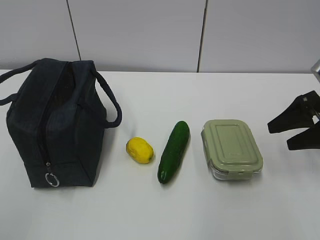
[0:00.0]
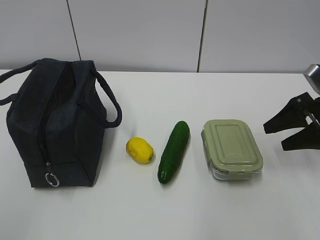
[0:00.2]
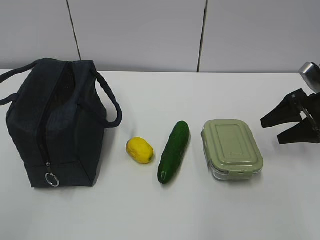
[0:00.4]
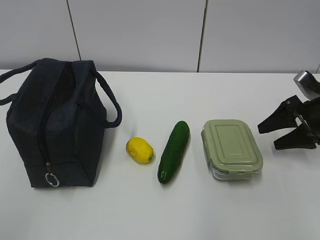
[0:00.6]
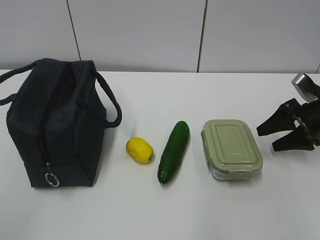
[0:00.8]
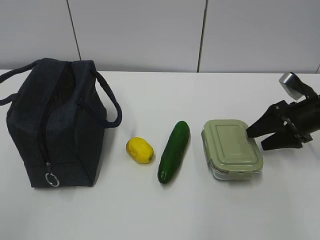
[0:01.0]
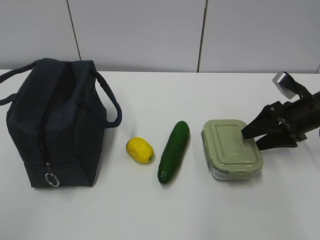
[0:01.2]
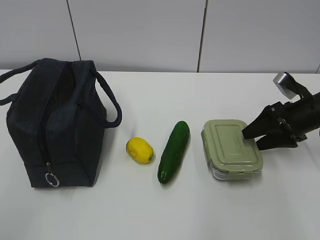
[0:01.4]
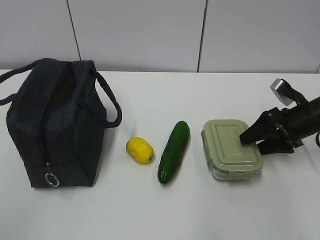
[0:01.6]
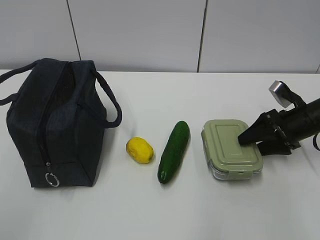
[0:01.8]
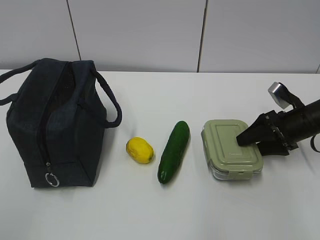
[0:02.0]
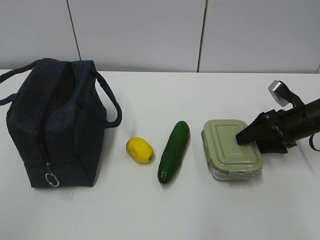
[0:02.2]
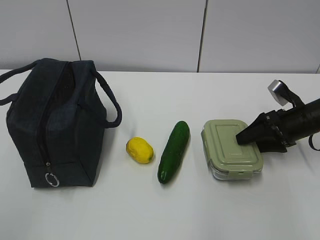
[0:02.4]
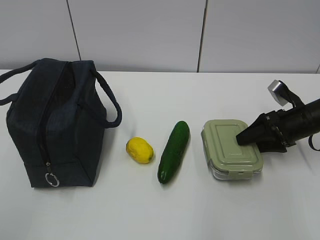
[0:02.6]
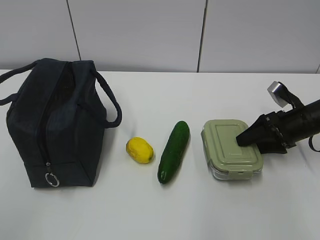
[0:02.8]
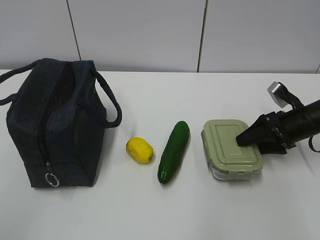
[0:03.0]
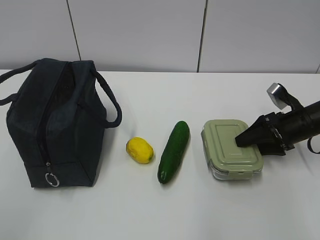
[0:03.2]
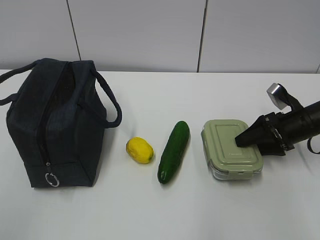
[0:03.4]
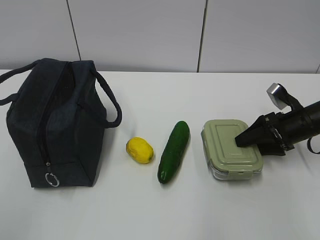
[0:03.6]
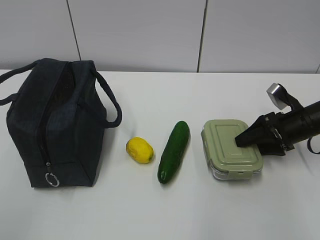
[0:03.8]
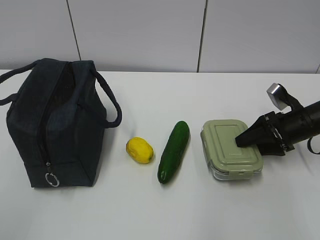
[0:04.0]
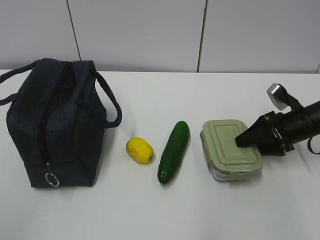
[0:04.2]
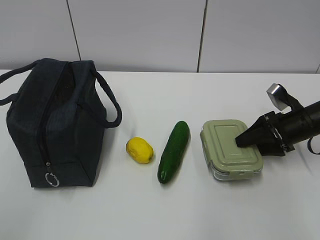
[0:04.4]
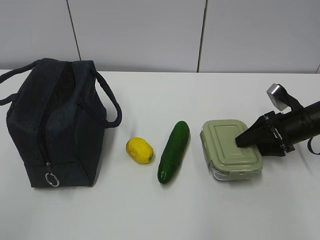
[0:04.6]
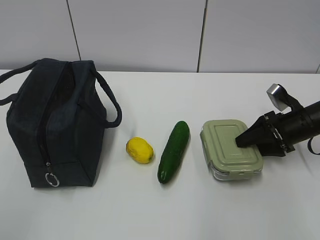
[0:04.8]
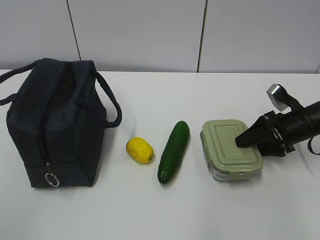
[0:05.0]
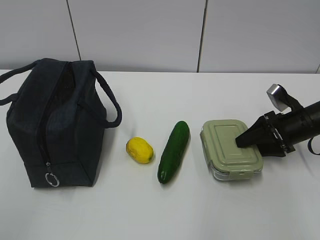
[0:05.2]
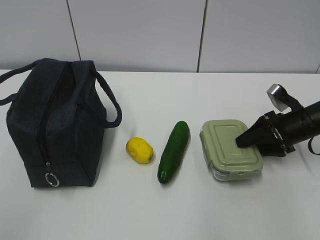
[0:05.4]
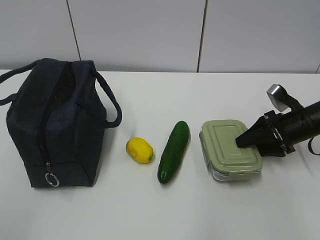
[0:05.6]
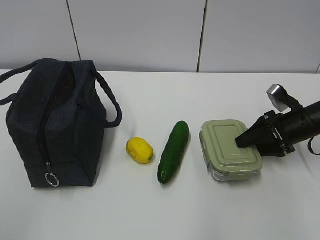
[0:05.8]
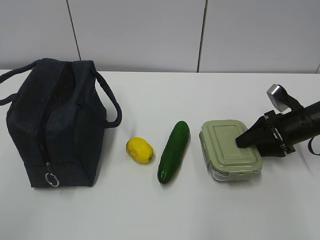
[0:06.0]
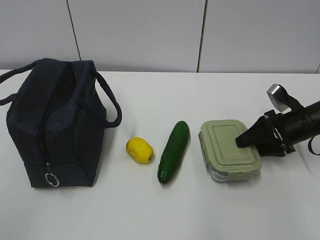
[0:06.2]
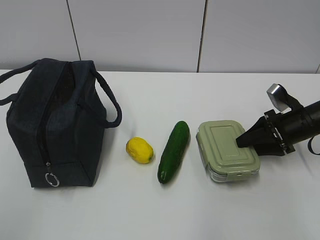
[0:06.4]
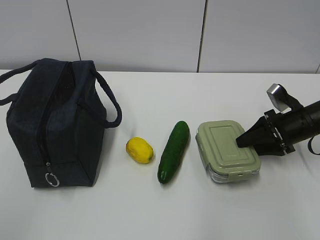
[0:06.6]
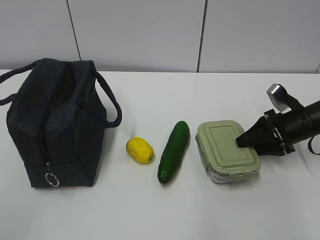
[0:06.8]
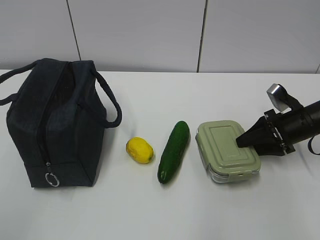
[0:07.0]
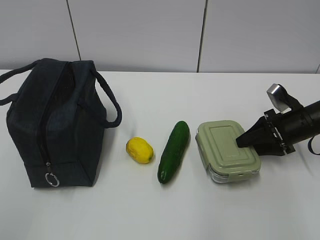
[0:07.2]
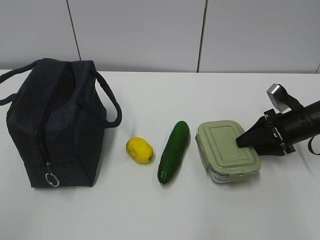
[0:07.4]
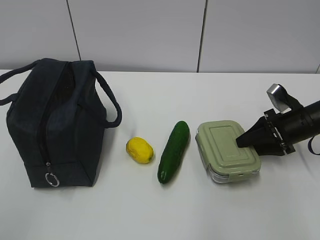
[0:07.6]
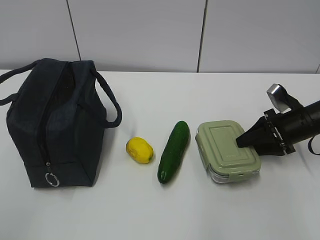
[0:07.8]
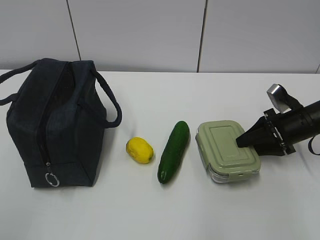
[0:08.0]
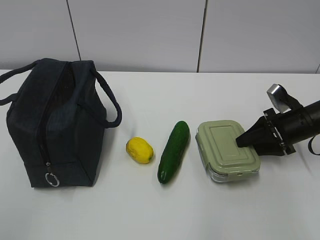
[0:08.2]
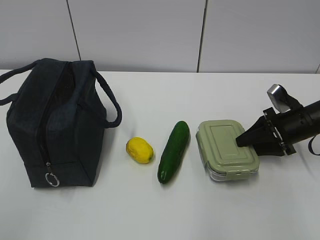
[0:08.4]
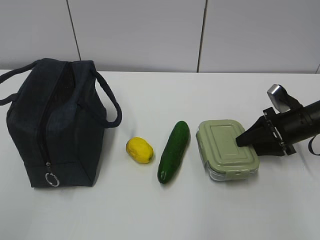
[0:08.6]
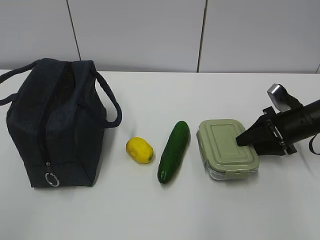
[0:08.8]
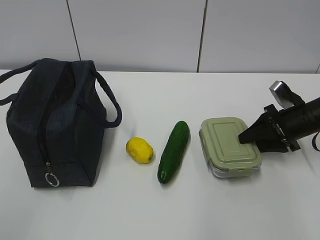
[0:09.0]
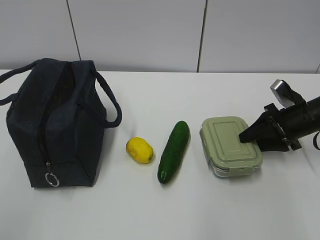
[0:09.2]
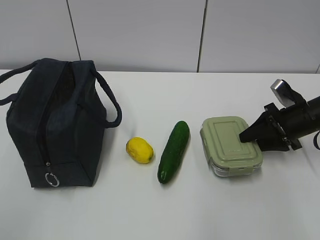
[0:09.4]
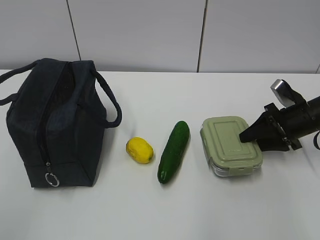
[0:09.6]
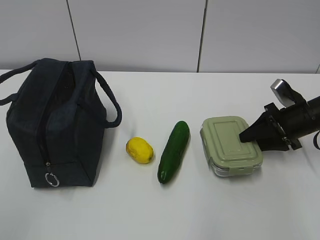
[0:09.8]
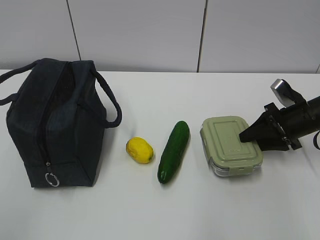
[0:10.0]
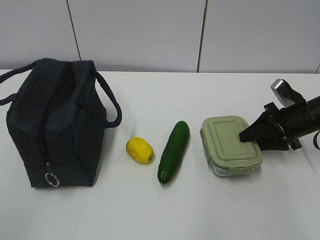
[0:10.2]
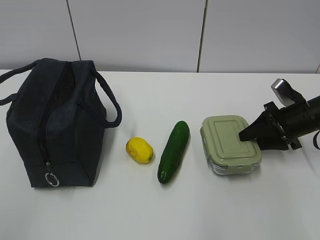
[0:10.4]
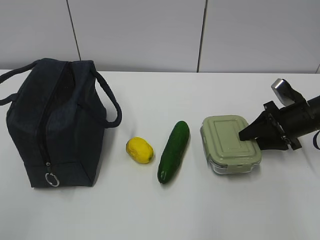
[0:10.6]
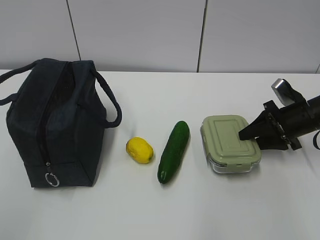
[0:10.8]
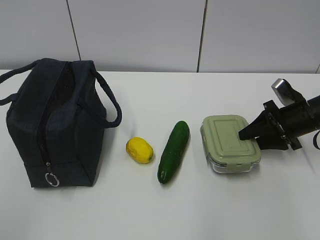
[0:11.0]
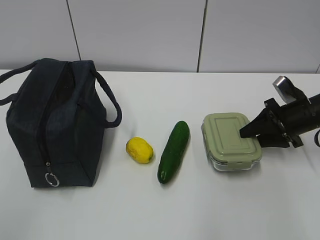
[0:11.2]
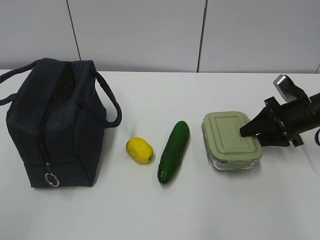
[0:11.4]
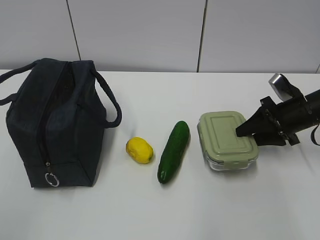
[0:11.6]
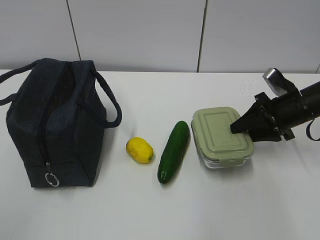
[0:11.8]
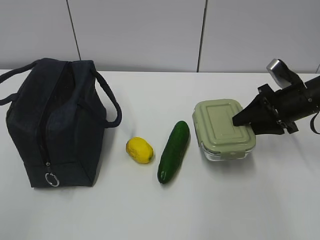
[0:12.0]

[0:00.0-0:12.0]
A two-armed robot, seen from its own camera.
Step, 0:00.0 to 0:08.2: Grab the lunch box with your right hand.
0:00.0 to 0:01.6: The right gripper is displaced downward and forward by some 10 cm.
0:01.6 to 0:03.0: The grippers move only a little.
0:03.0 to 0:04.4: Both grippers stay about where they are.
0:04.4 to 0:07.6: Neither gripper changes place.
0:07.6 to 0:09.0: Neither gripper changes place.
0:09.0 to 0:10.4: The two grippers keep their place.
0:10.4 to 0:12.0: The grippers stay close to where they were, moving slightly.

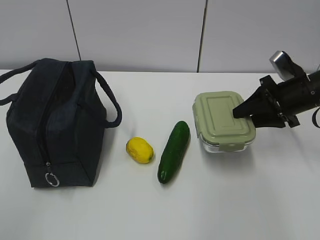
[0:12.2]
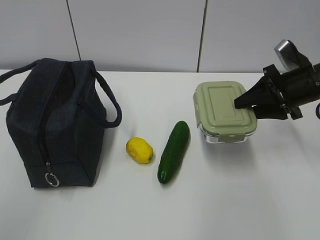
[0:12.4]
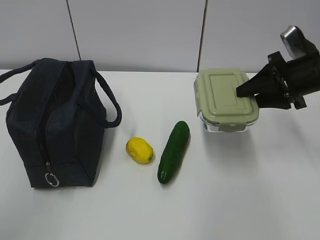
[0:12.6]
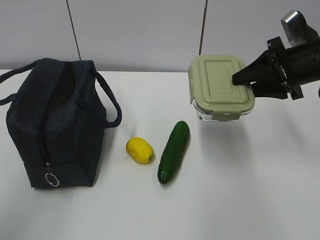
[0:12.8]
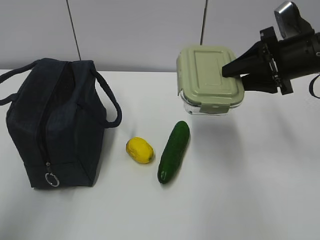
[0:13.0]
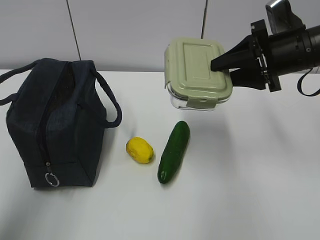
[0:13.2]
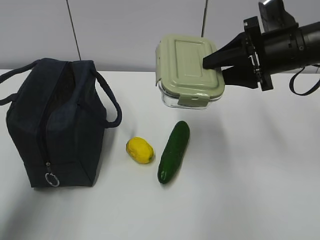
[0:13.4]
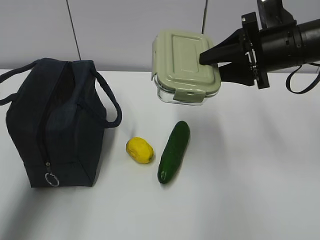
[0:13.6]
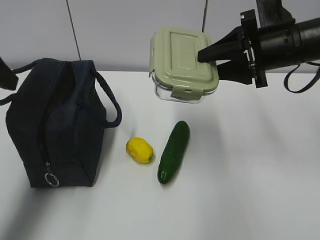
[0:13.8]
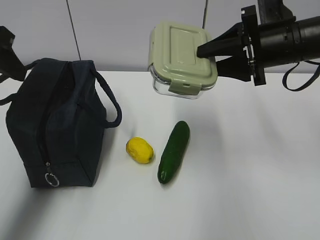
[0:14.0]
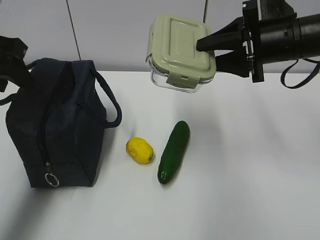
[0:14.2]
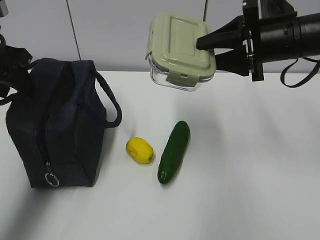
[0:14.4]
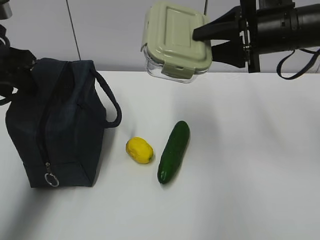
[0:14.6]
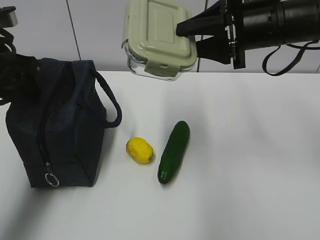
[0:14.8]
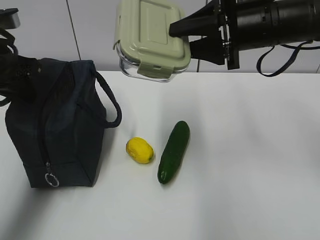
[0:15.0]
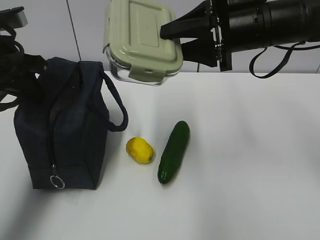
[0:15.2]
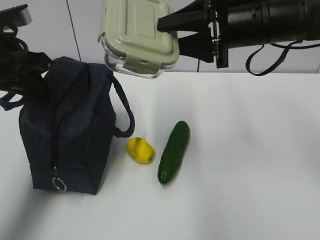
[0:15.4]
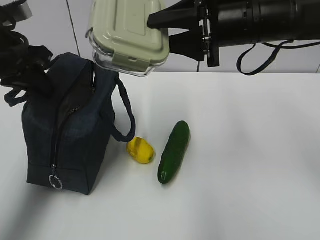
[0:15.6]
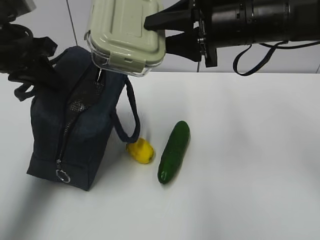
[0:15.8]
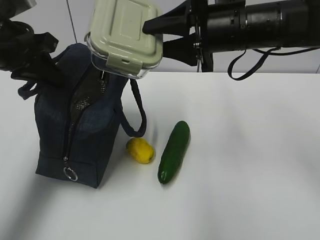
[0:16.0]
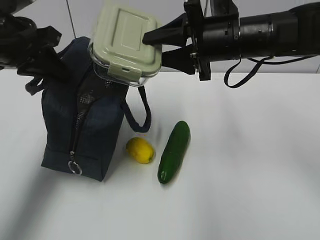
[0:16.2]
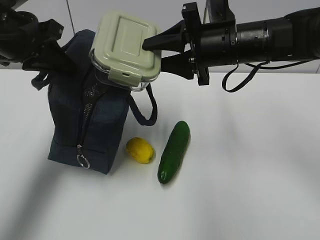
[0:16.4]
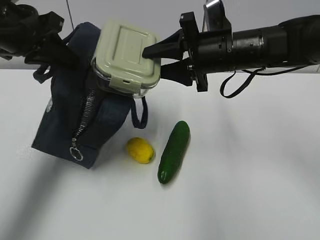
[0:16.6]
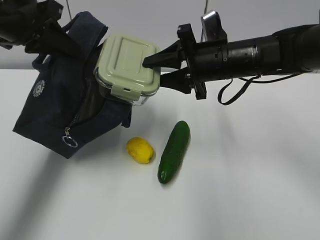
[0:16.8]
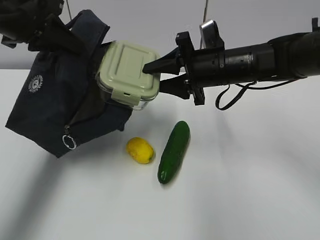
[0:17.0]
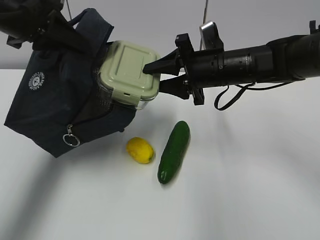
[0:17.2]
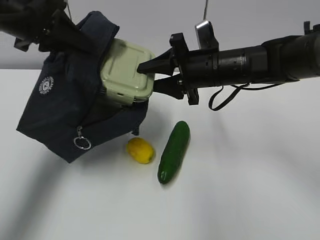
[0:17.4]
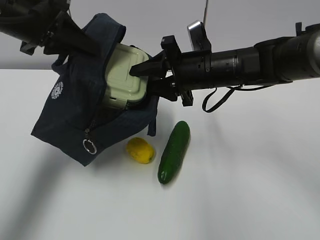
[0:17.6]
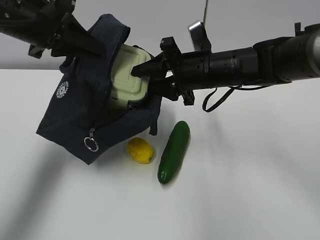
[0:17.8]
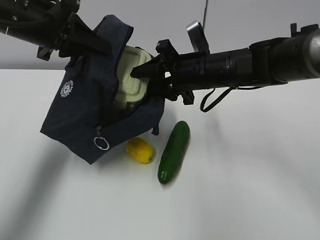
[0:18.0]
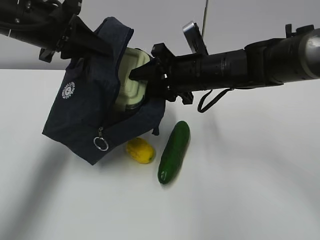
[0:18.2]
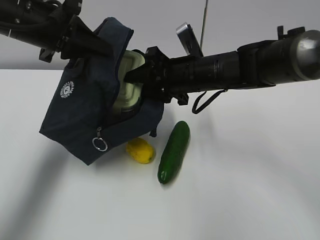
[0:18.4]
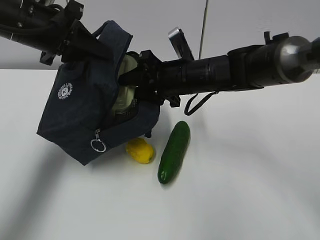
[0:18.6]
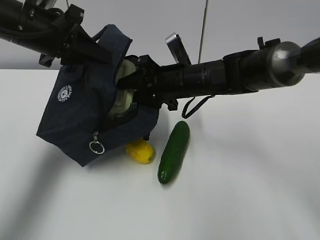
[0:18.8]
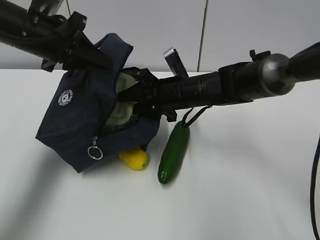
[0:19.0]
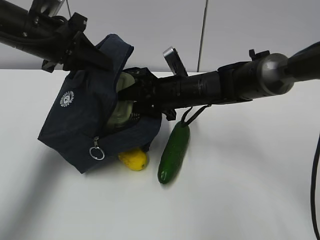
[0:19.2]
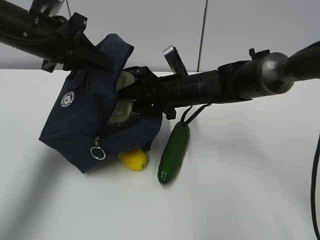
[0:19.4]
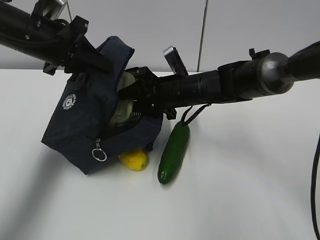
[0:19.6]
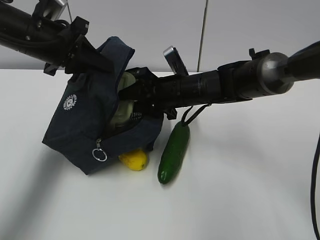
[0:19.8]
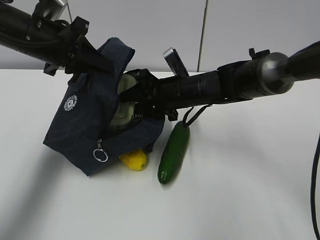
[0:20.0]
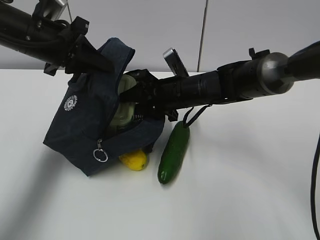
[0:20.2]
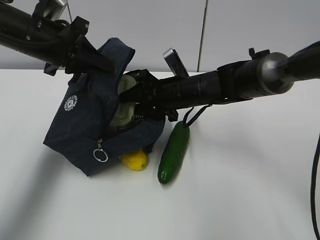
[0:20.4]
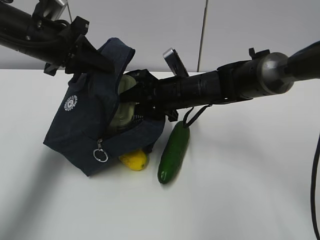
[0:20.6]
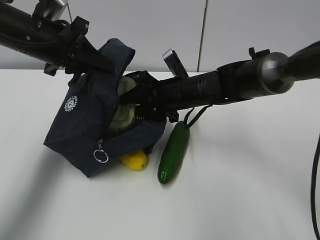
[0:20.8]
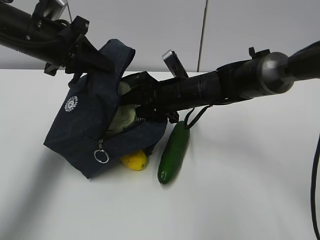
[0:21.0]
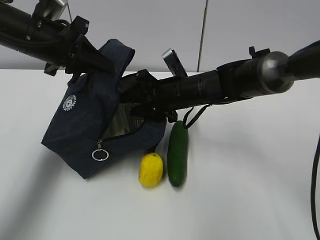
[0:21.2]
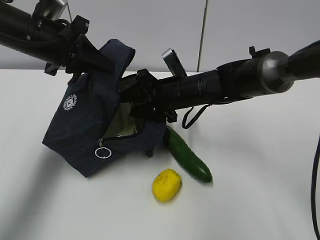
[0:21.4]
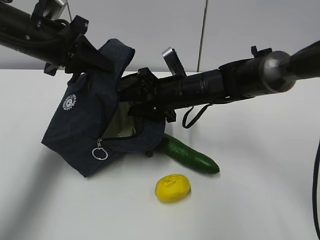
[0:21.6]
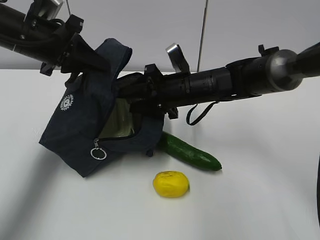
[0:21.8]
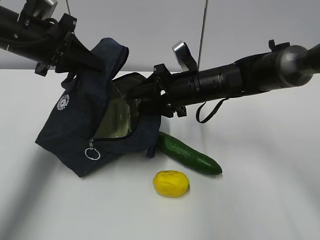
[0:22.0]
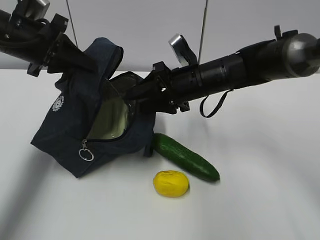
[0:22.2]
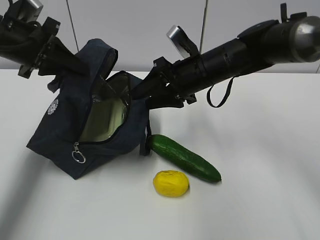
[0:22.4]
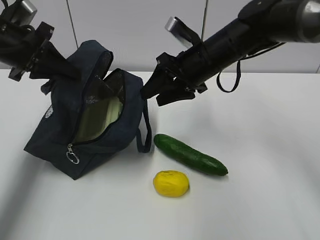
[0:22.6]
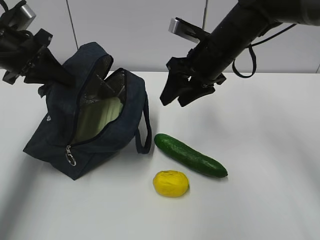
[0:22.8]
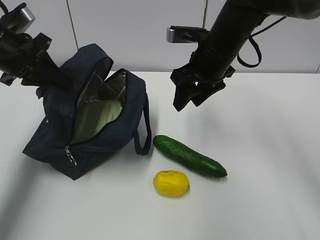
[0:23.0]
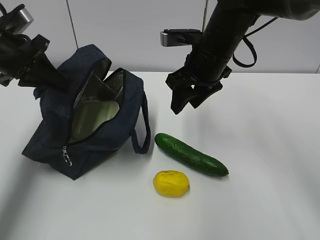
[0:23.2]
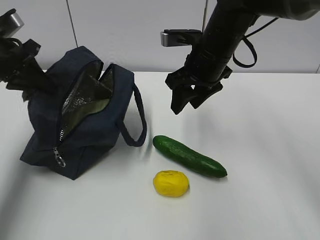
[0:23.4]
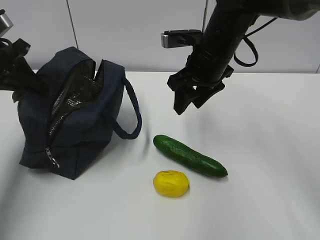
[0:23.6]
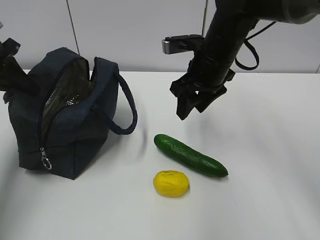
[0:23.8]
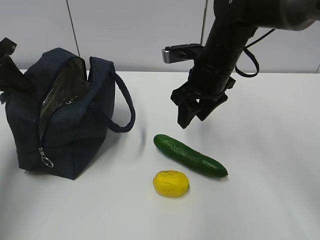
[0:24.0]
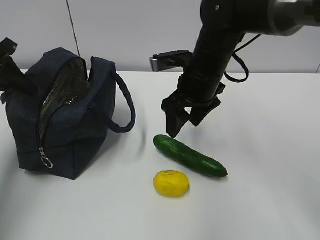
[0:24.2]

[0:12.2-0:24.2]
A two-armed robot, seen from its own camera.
Step, 0:13.0 to 0:16.6: Place it into the bag with your right hand.
Step, 0:17.0 to 0:20.6: Grab the cucumber with your right hand.
Step, 0:21.0 to 0:23.8: Place it into the bag with your right hand.
0:12.2 to 0:13.8: The left gripper heads forward, covering some 25 cm; the right gripper heads upward and to the left, covering some 10 cm.
0:13.8 to 0:15.2: The left gripper shifts some 10 cm forward and downward, and closes up, while the right gripper goes approximately 5 cm to the left.
0:15.2 to 0:16.6: The right gripper ends up roughly 5 cm from where it was.
0:16.6 to 0:18.2: The right gripper ends up about 5 cm from where it was.
0:18.2 to 0:19.8: The right gripper goes approximately 5 cm downward.
0:19.8 to 0:21.2: Both grippers stay about where they are.
0:21.2 to 0:22.6: The right gripper goes about 5 cm upward. The left gripper heads to the left, covering about 5 cm.
0:22.6 to 0:24.2: The left gripper moves to the left, about 5 cm.
